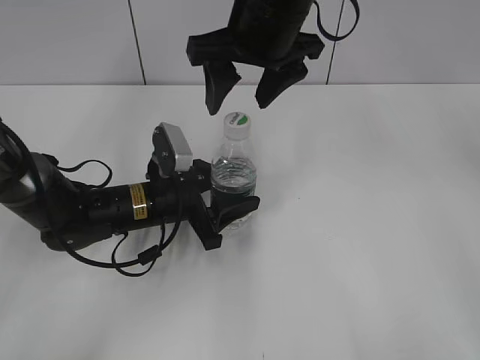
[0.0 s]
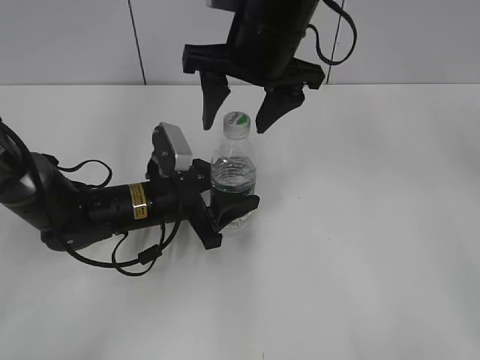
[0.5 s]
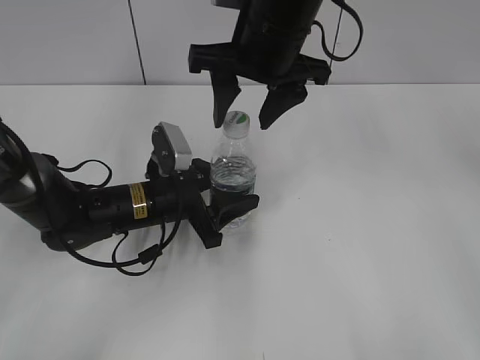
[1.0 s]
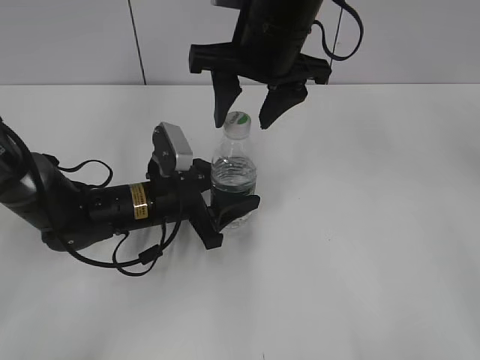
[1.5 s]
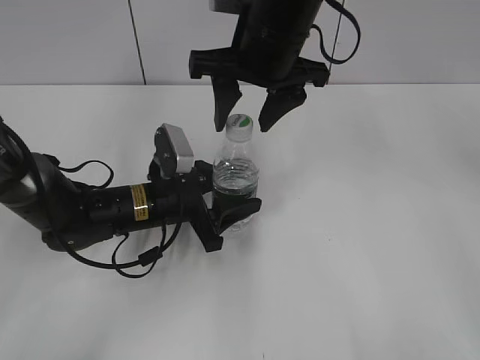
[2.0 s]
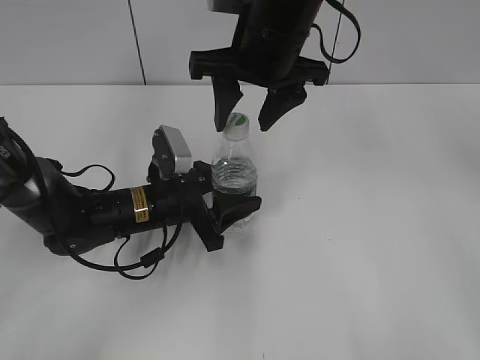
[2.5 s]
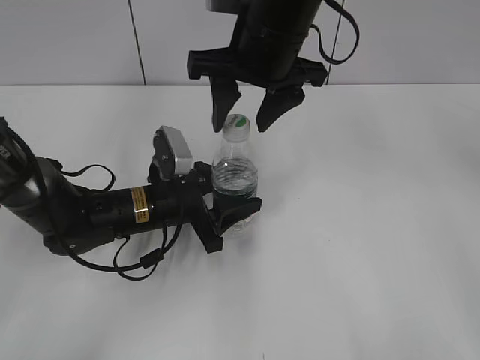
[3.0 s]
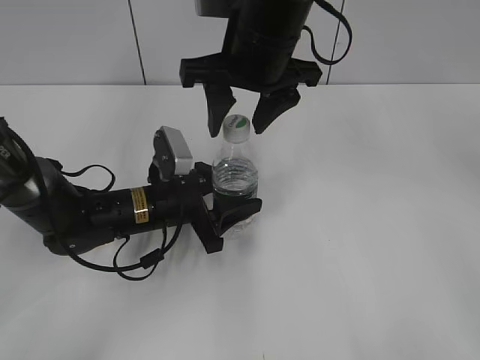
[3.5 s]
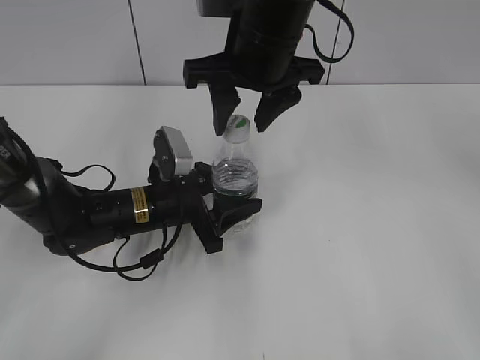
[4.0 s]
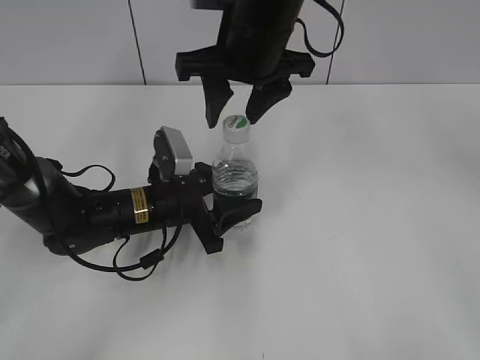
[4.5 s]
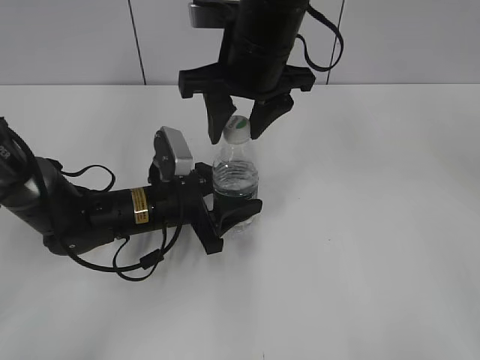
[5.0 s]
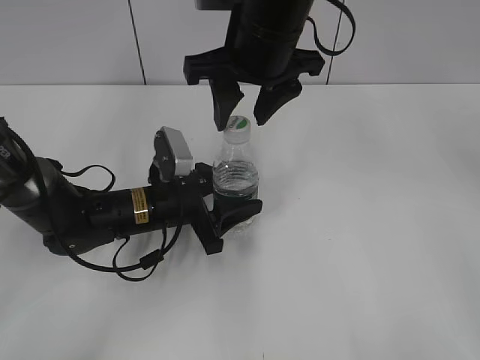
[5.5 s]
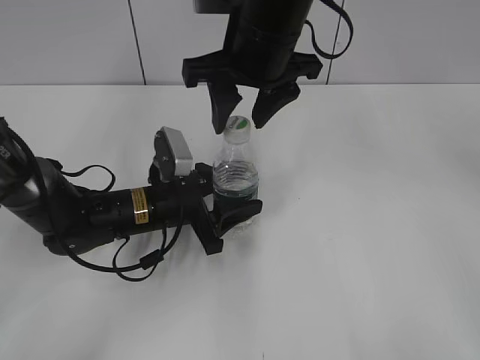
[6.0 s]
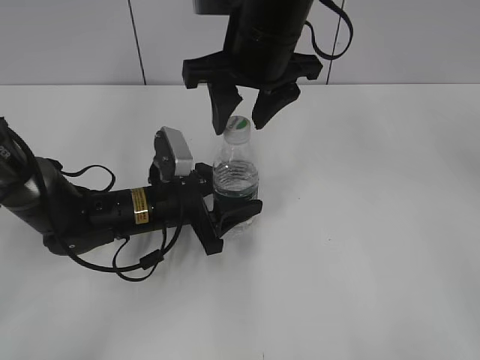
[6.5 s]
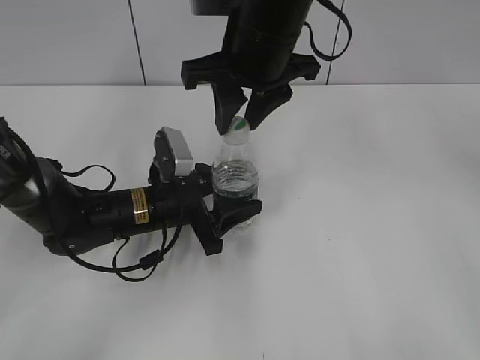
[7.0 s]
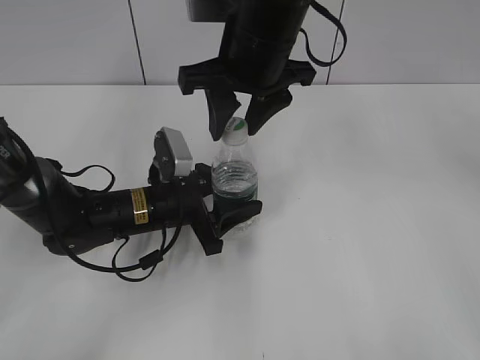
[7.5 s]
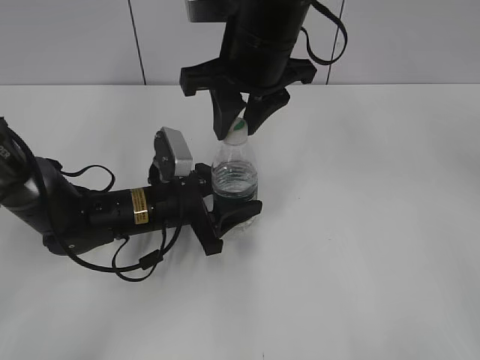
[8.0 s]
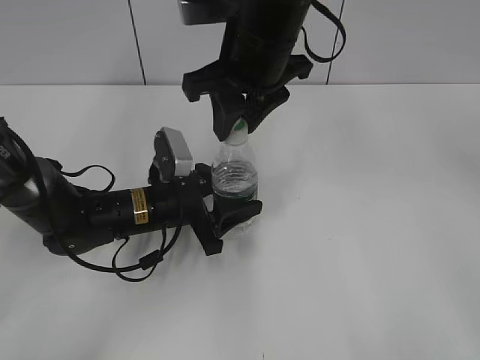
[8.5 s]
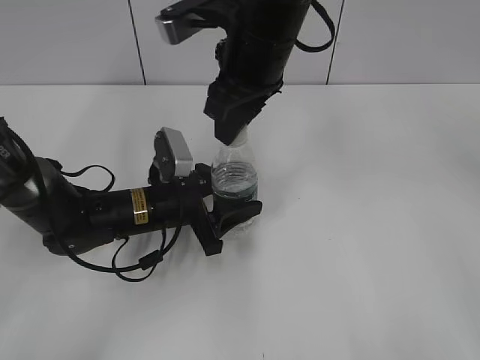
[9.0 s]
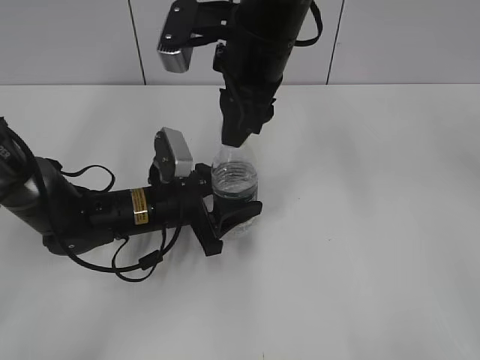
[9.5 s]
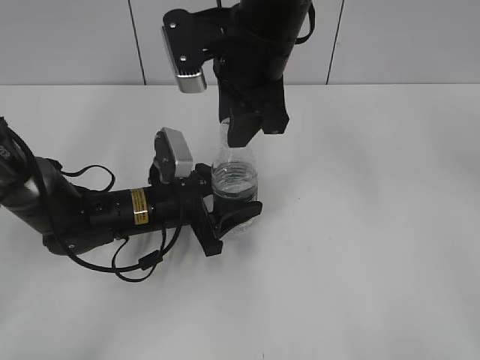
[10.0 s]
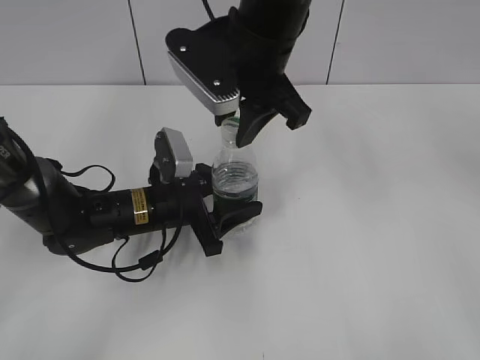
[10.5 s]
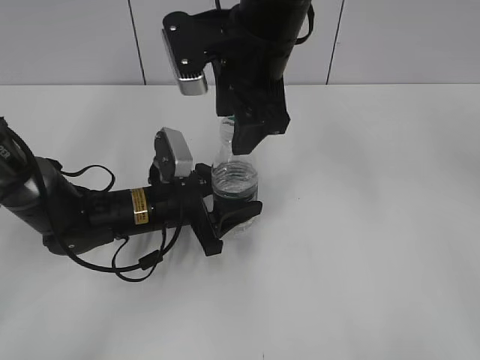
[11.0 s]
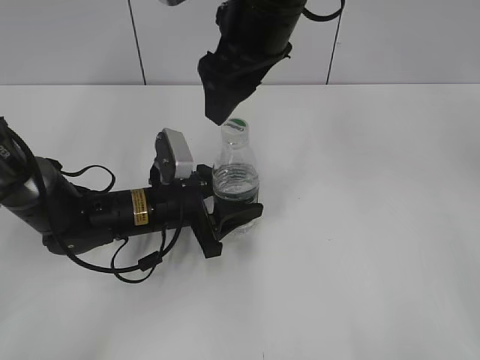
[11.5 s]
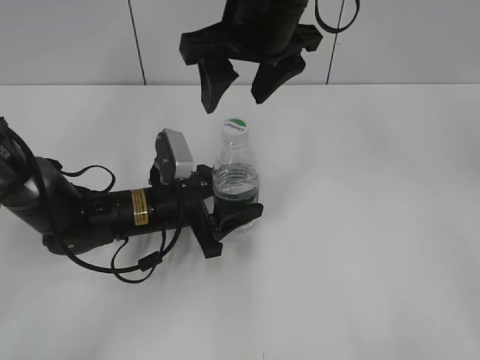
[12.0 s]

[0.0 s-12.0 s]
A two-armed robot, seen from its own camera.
0.0 to 4.0 s: The grippers move only a little.
4.0 to 6.0 s: Both grippers stay put.
6.0 to 8.0 s: The right gripper closes.
10.0 to 12.0 s: The right gripper opens up.

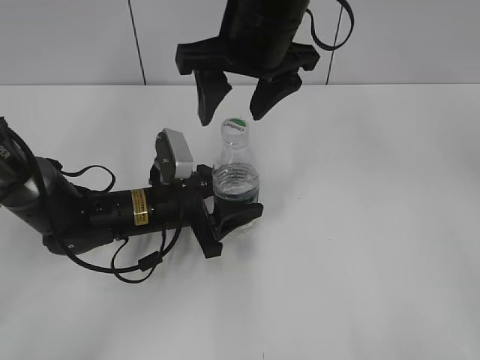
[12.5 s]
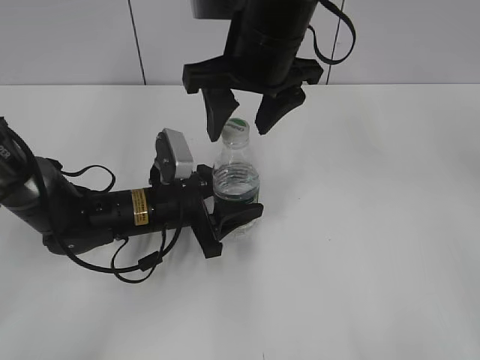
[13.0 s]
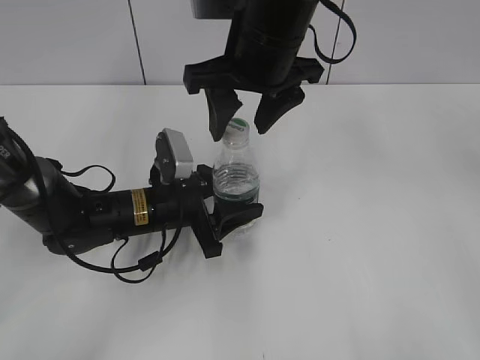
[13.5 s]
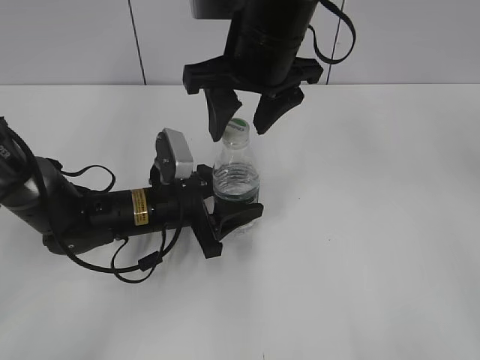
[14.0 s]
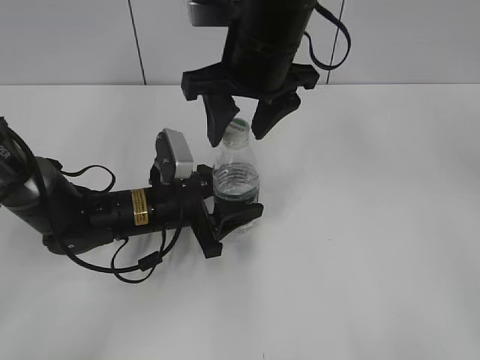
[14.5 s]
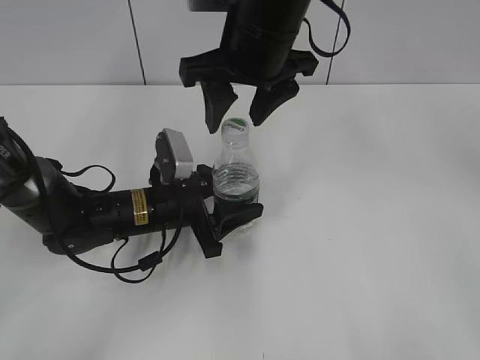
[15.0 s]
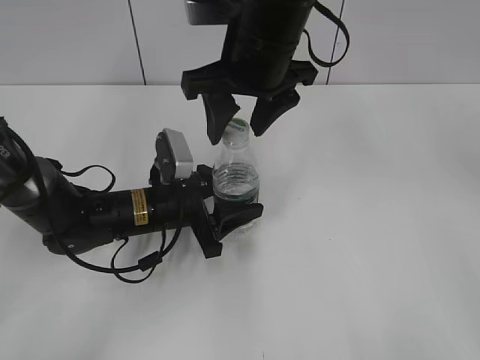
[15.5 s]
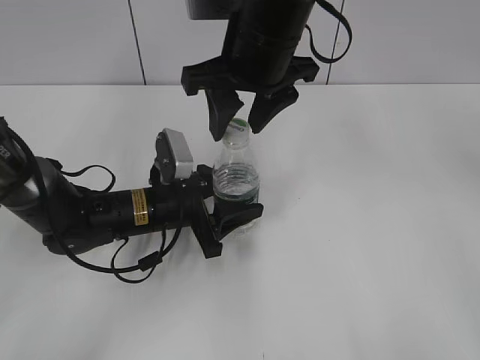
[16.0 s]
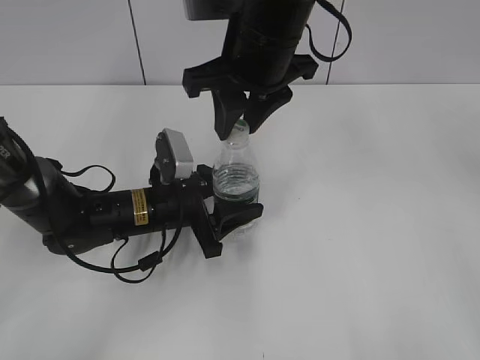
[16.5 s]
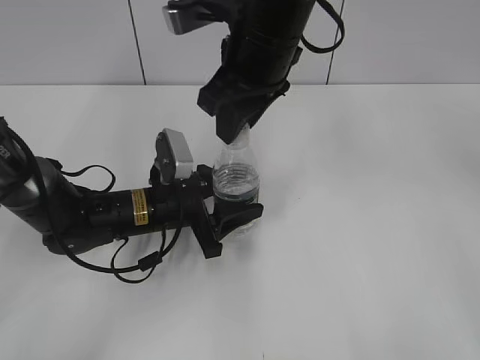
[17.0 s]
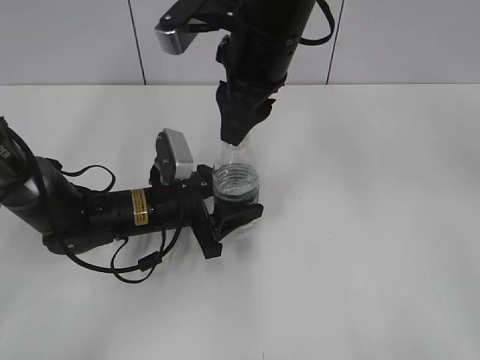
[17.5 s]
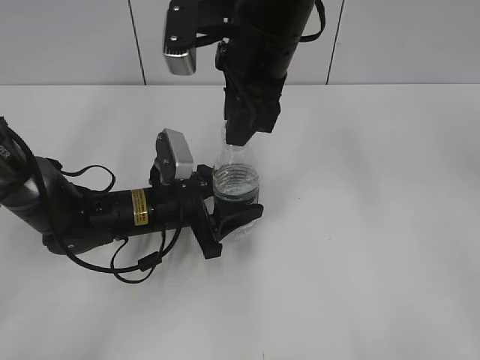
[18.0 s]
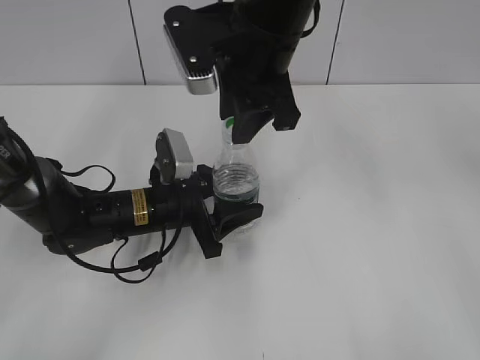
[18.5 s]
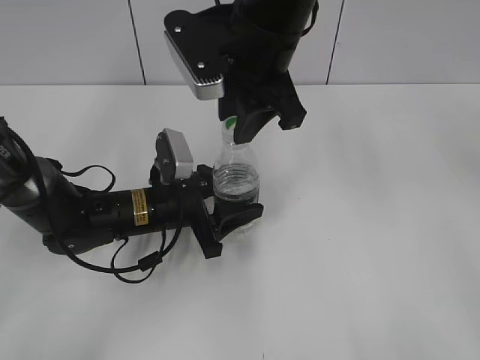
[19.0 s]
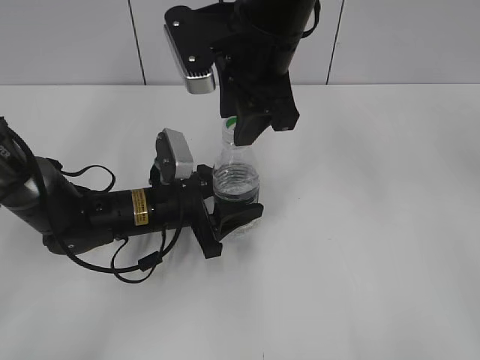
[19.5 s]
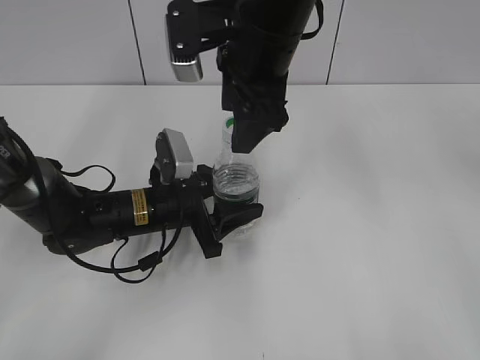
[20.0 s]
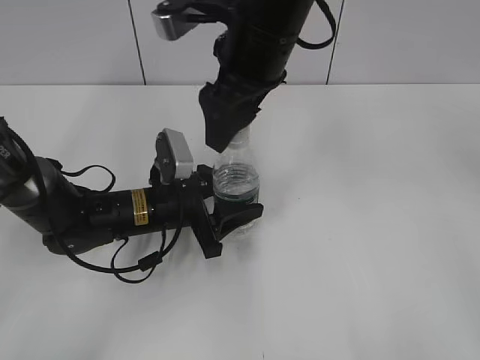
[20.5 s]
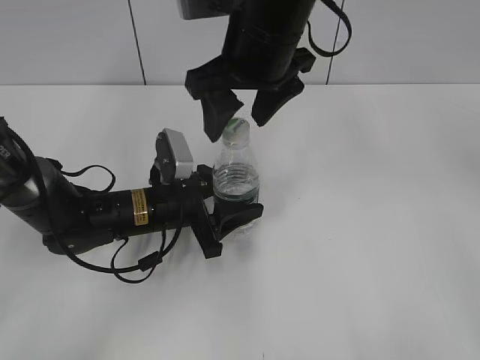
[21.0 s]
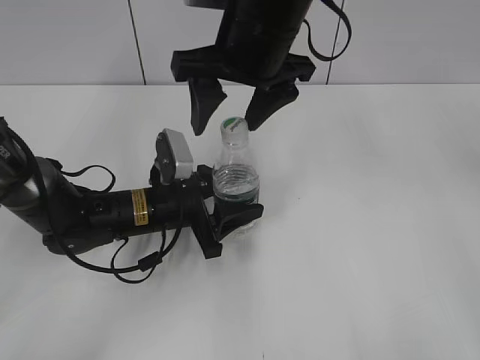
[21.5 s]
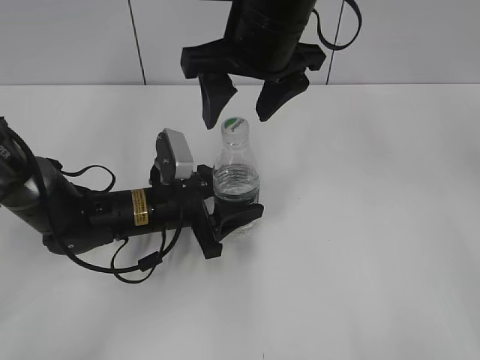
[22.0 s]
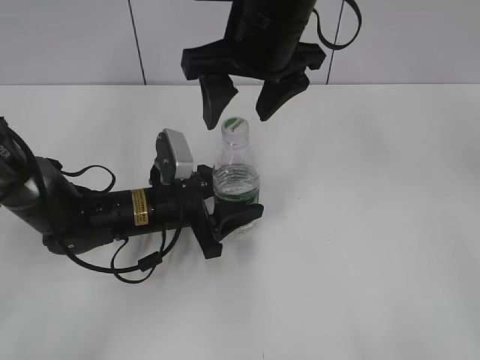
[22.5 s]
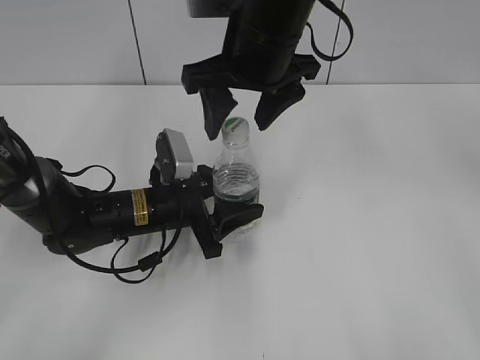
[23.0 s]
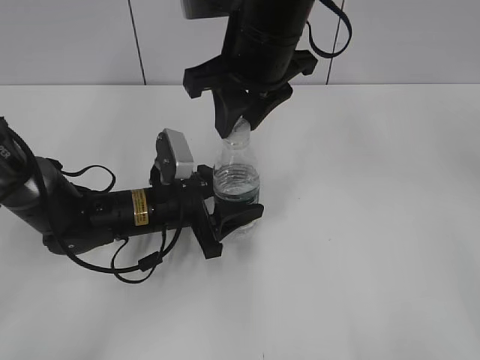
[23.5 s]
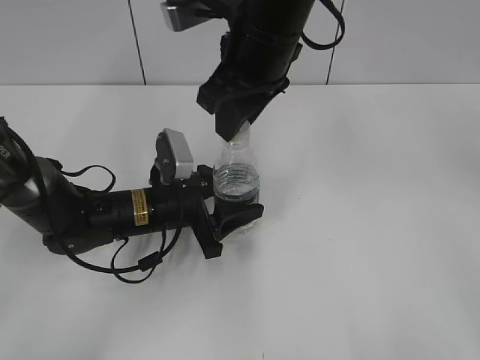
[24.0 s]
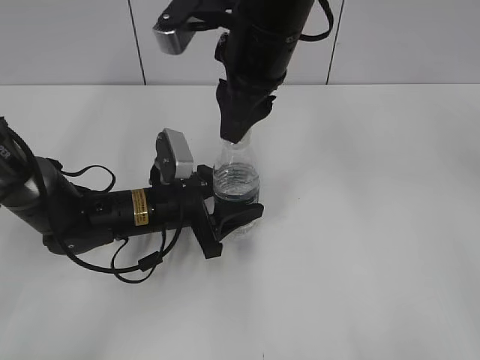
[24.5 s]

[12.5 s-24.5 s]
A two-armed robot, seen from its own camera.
12.5 to 14.5 s: The grippers stay close to where they were, moving slightly.
14.5 to 16.5 s: The right gripper closes up.
18.5 to 20.5 s: The right gripper opens its fingers.
22.5 to 24.5 s: The right gripper closes.

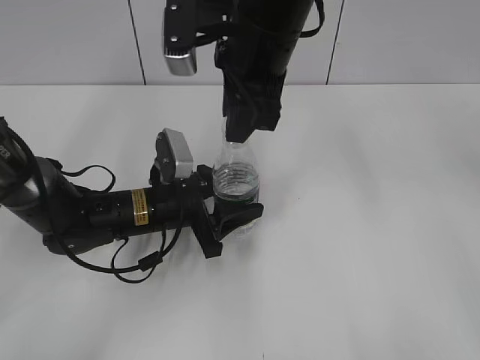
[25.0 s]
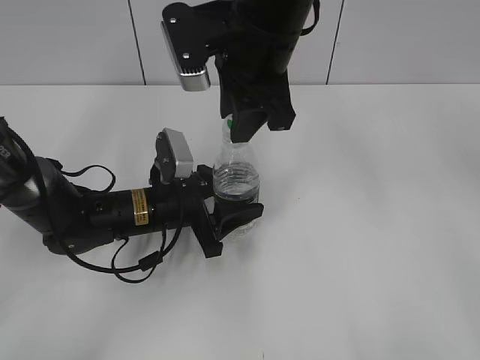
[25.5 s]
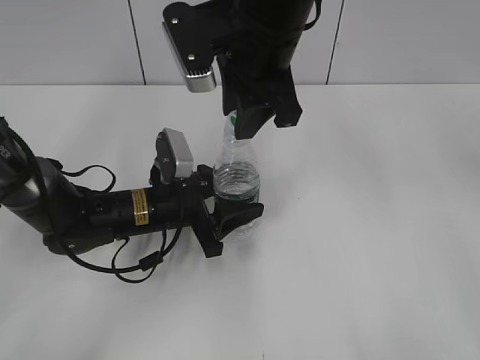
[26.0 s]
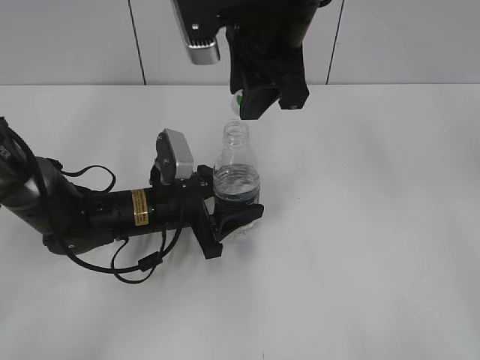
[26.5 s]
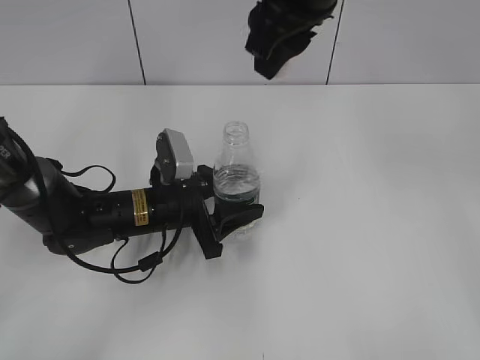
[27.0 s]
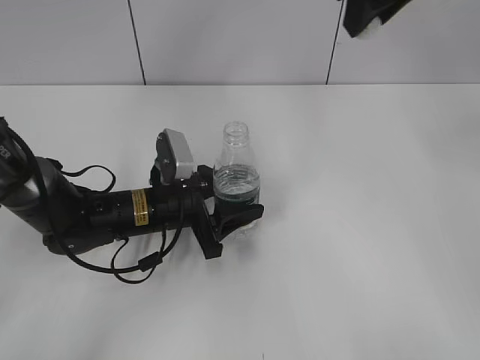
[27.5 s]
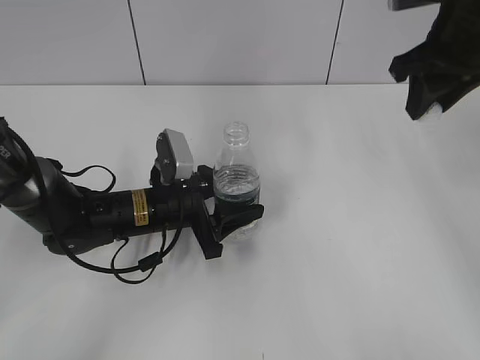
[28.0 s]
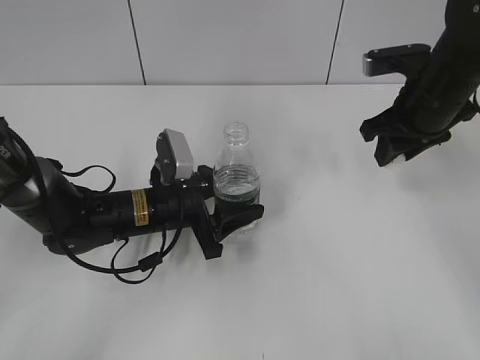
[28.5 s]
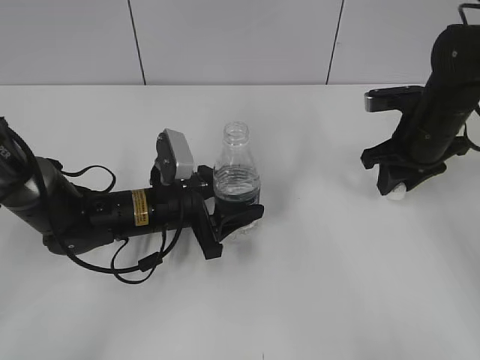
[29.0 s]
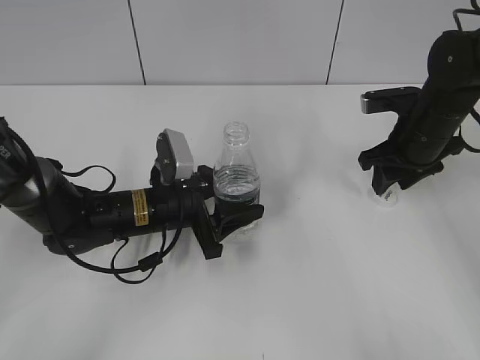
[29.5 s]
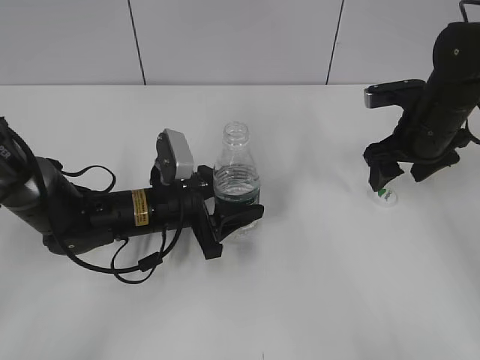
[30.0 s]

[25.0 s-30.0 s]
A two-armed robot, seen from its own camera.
25.0 to 27.5 s: The right gripper heads to the right and upward, covering approximately 15 cm.
27.5 to 30.0 s: The right gripper is displaced downward and to the right by some 25 cm, and opens up.
